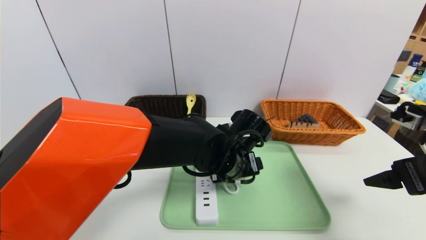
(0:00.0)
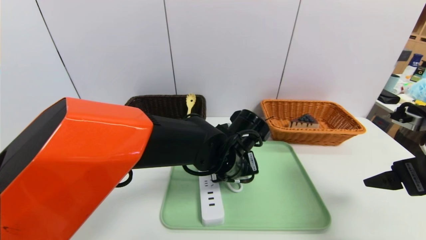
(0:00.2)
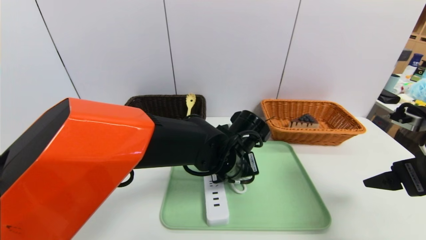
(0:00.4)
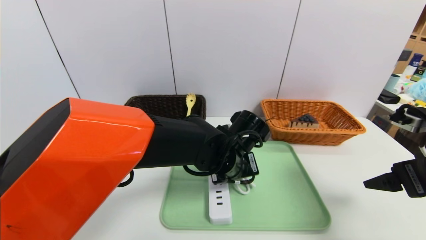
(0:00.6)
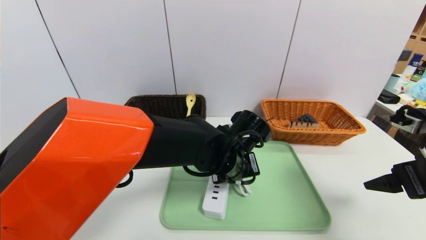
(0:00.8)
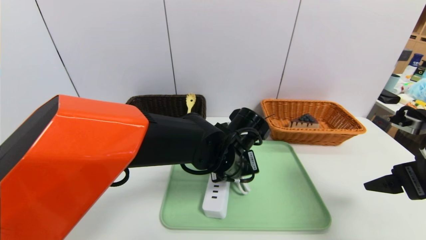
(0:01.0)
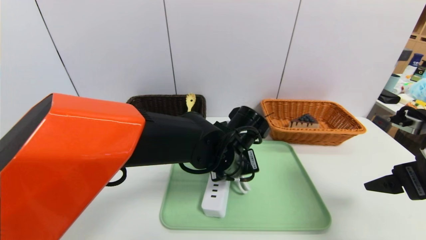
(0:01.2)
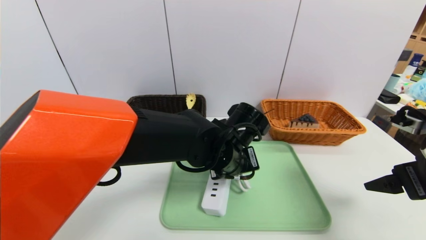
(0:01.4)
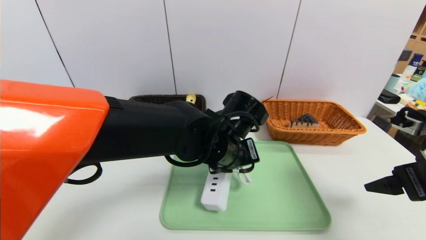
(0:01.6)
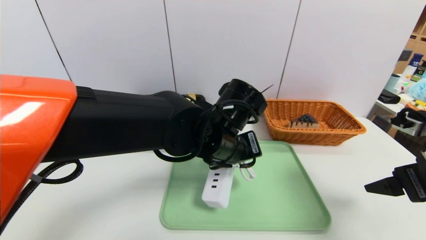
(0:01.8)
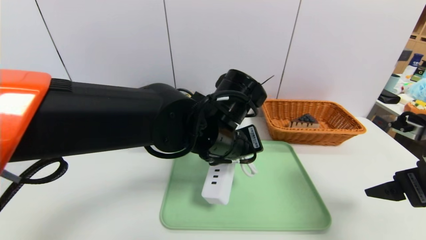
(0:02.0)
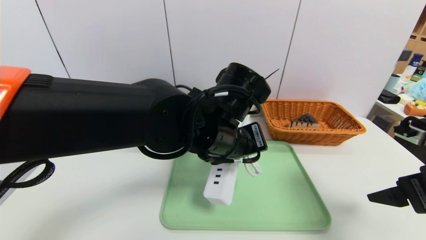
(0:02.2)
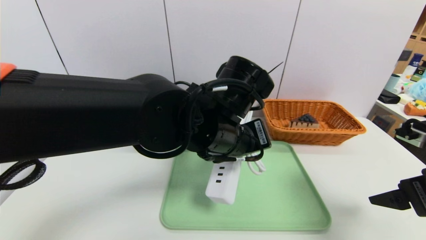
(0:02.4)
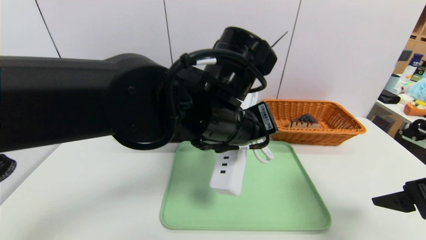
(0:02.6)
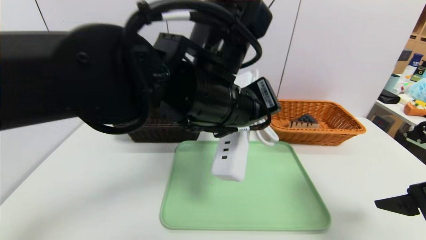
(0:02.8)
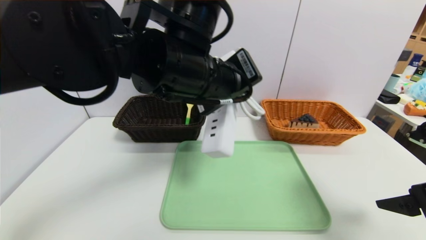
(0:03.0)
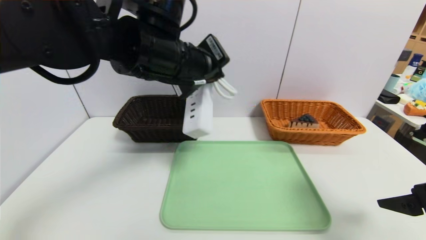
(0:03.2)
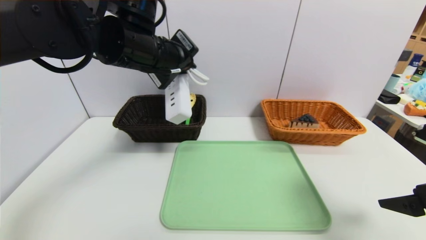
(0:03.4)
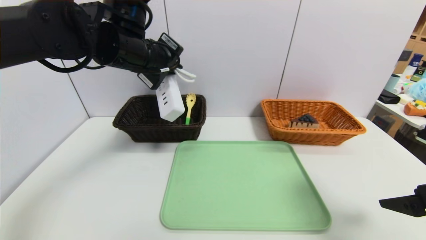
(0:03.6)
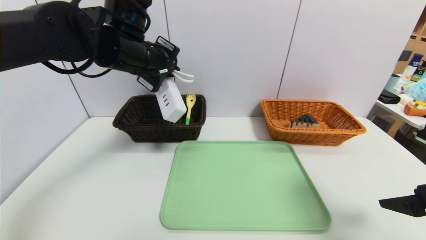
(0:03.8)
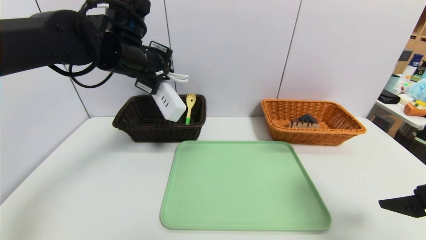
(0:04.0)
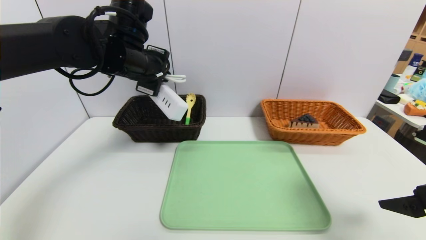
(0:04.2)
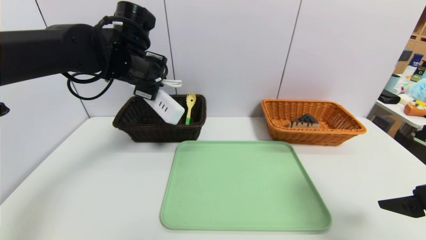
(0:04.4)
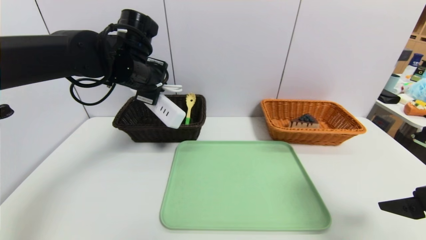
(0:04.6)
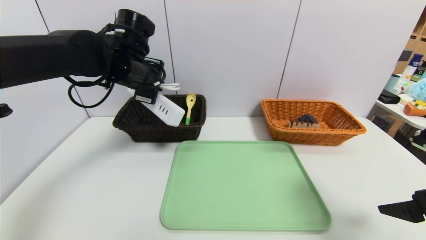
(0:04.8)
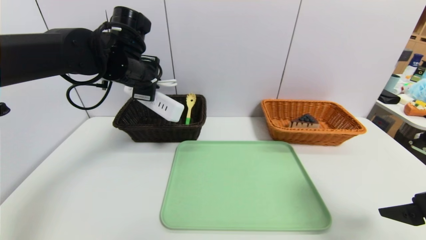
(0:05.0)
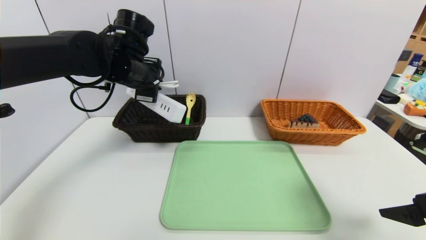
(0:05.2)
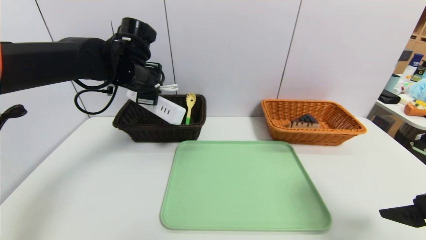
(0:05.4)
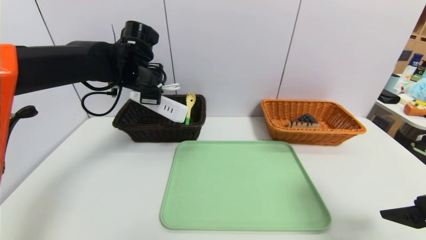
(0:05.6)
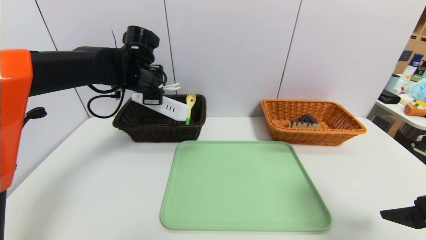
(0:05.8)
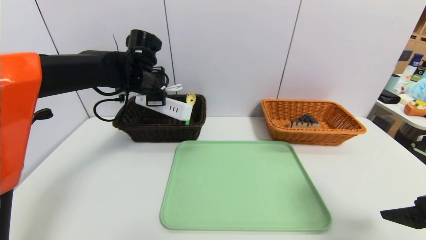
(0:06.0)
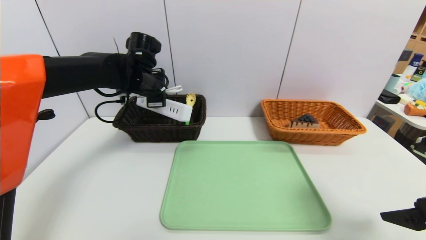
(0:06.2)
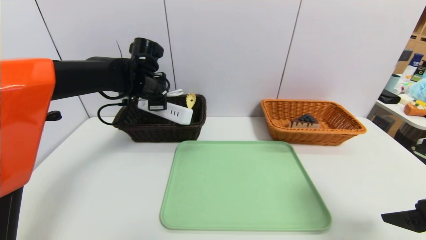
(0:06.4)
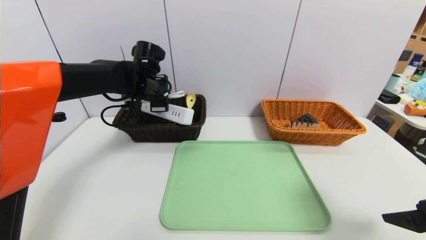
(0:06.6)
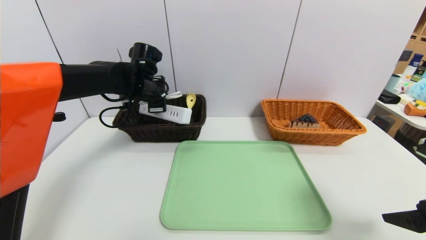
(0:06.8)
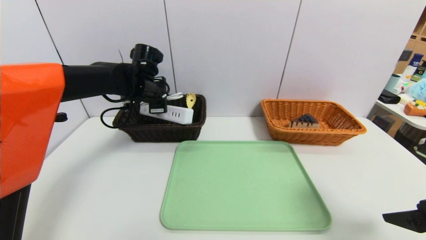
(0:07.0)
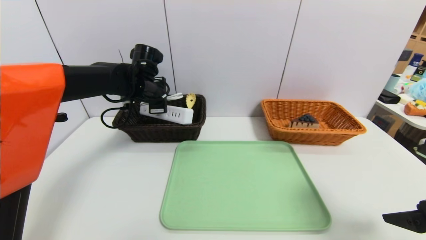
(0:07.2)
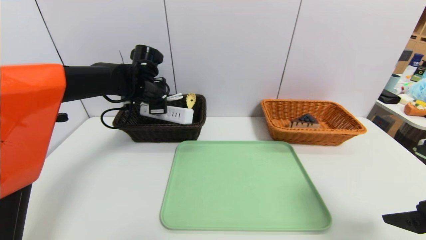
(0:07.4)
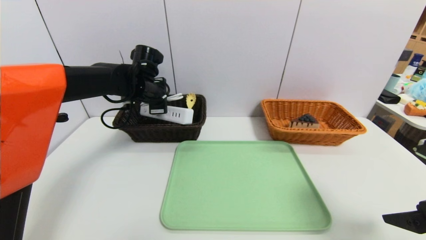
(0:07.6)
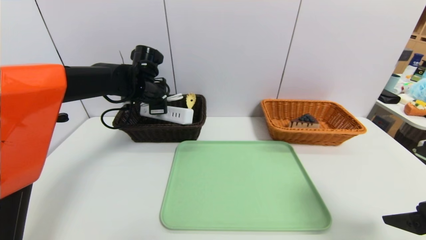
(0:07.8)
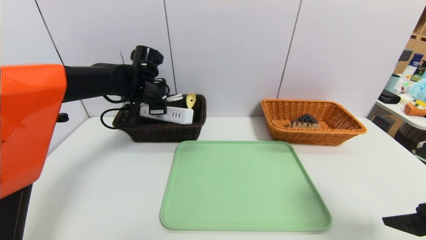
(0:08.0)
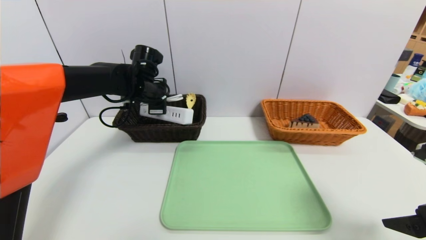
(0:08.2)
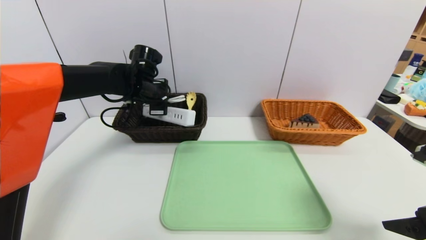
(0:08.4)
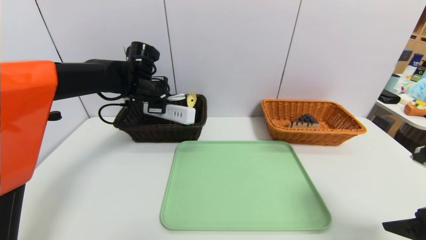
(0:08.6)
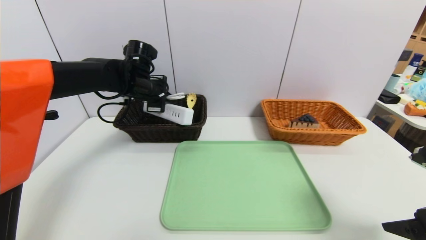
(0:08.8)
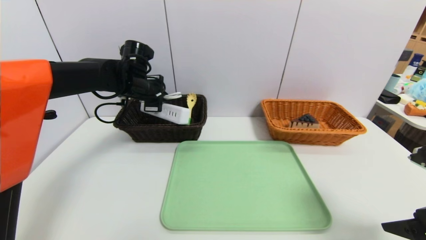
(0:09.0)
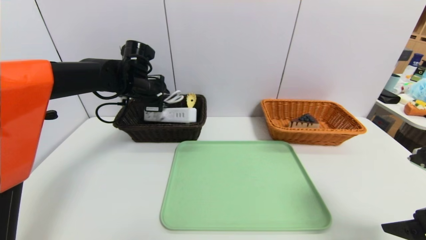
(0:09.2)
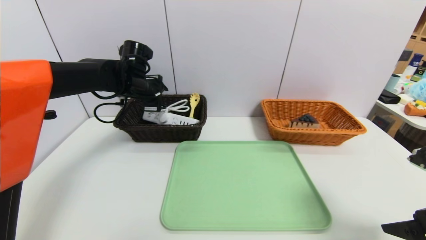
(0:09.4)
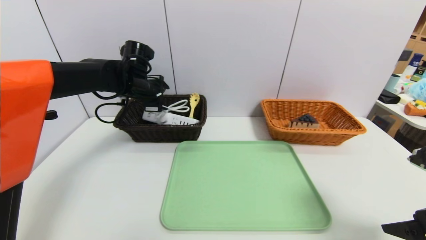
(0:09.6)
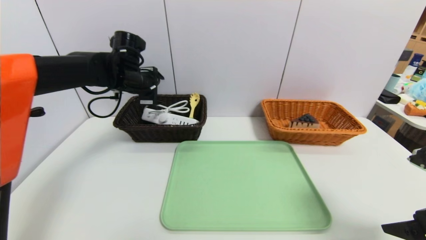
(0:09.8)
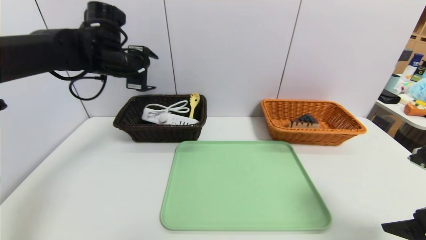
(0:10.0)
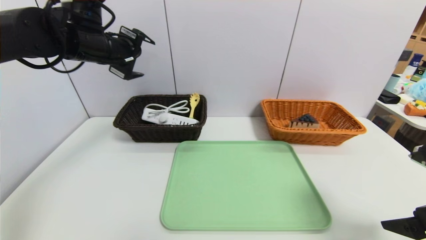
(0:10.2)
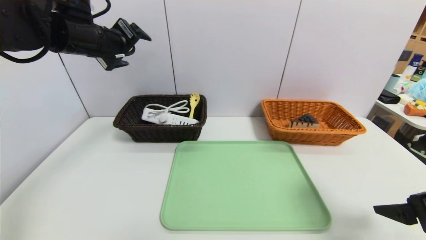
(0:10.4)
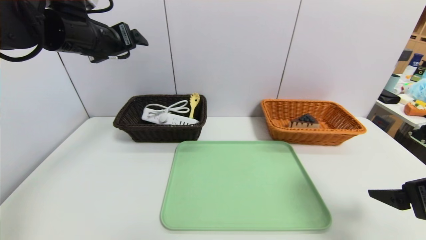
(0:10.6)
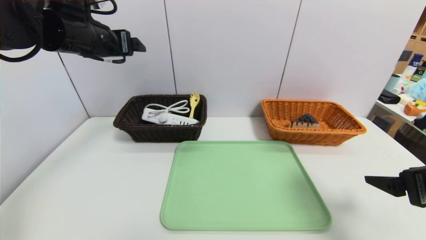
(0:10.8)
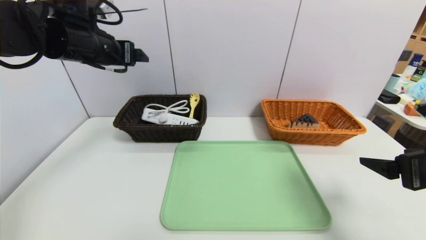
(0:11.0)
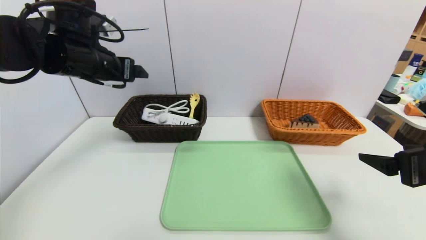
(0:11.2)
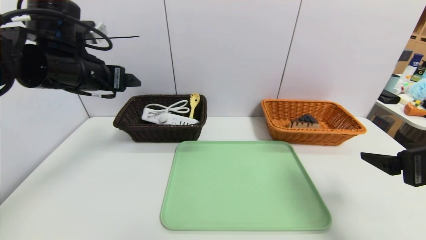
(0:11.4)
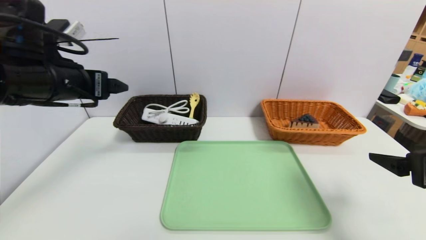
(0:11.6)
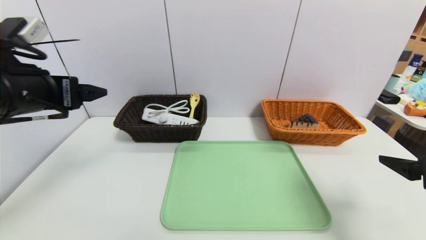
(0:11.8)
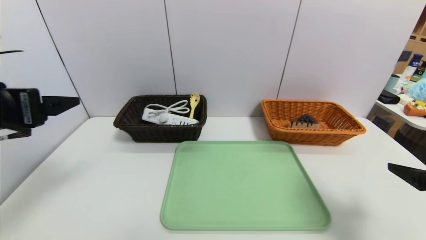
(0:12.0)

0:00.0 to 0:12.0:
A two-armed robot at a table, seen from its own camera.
Task of the whole recording: place the food in the right basket with the right gripper, and place the non food items in the left basket with the left gripper.
Step, 0:00.0 to 0:09.6: Grasp the power strip and put it in the left basket.
0:00.0 to 0:01.6: The left gripper closes its fingers.
0:01.6 to 0:03.0: The left gripper goes approximately 15 cm upward.
0:03.0 to 0:04.4: The left gripper shifts some 20 cm forward and to the left.
0:04.4 to 0:06.0: The left gripper shifts some 5 cm forward.
0:06.0 to 0:09.0: The grippers move only a little.
0:09.0 to 0:10.4: The left gripper is displaced upward and backward by about 15 cm, and opens its fingers.
0:10.4 to 0:12.0: The left gripper moves backward, roughly 20 cm.

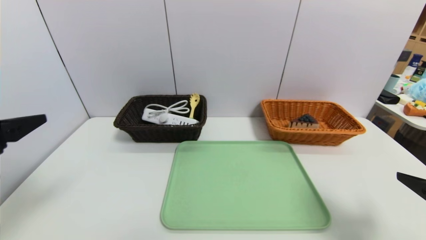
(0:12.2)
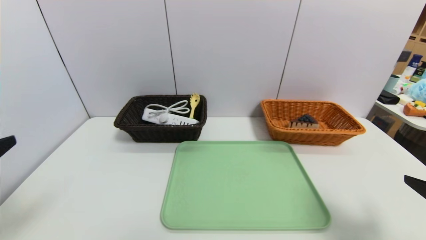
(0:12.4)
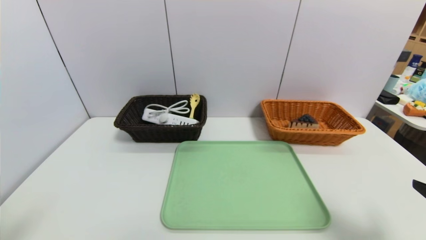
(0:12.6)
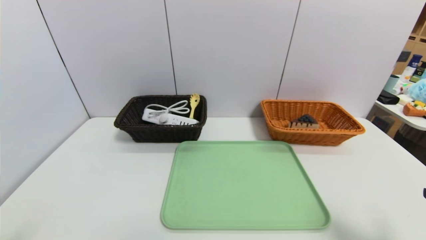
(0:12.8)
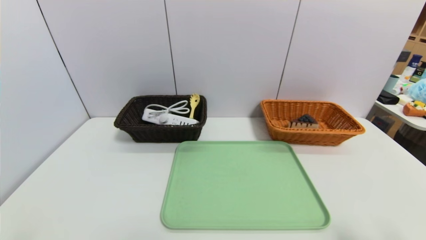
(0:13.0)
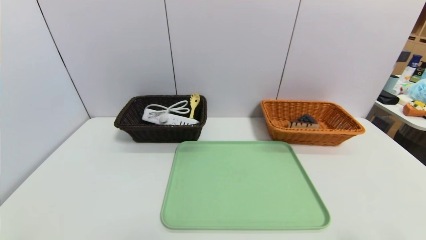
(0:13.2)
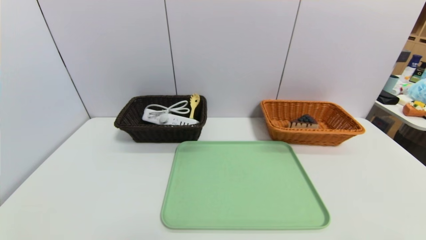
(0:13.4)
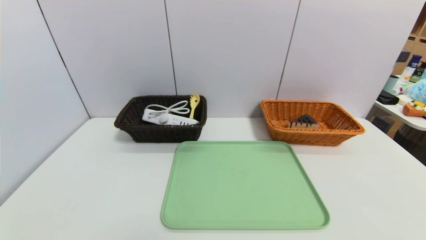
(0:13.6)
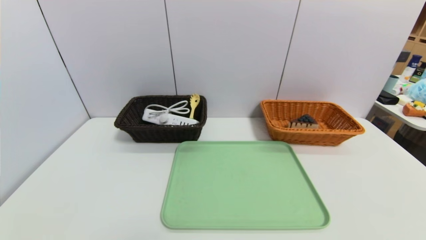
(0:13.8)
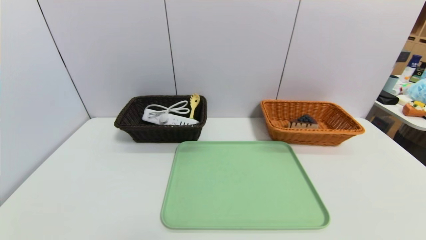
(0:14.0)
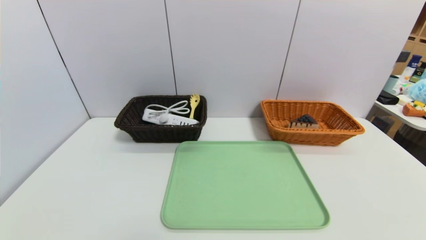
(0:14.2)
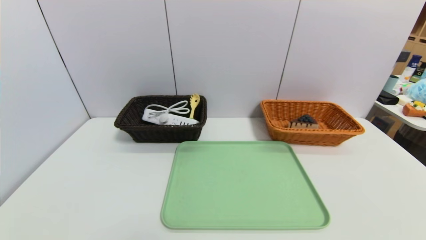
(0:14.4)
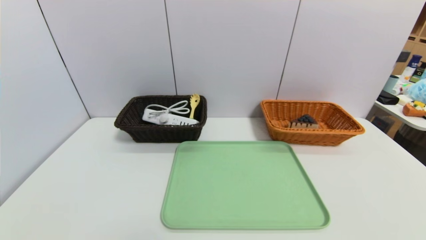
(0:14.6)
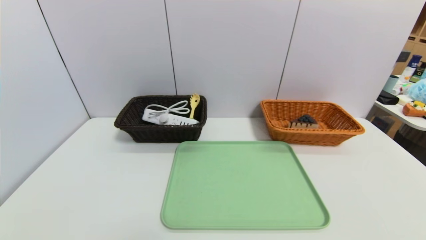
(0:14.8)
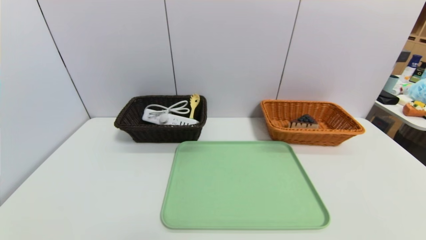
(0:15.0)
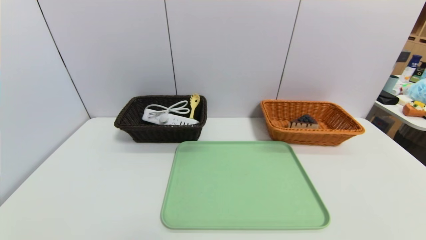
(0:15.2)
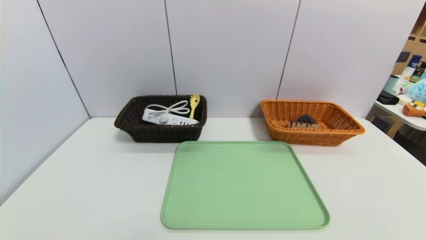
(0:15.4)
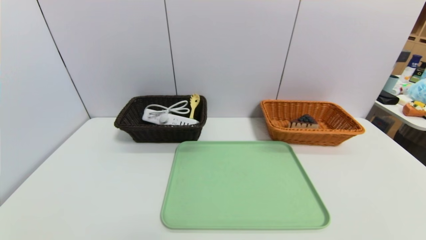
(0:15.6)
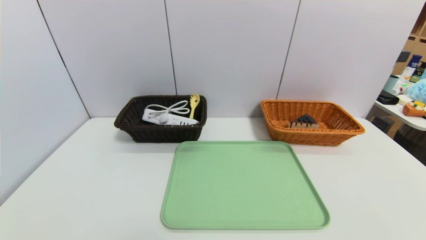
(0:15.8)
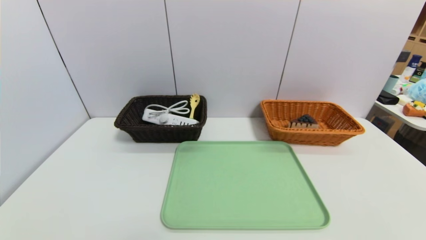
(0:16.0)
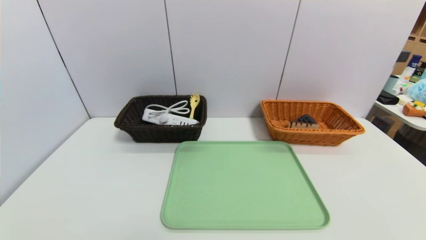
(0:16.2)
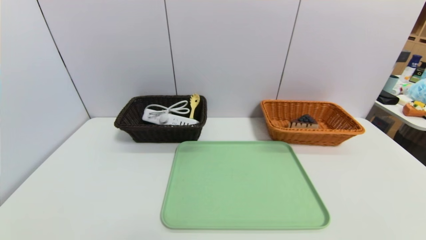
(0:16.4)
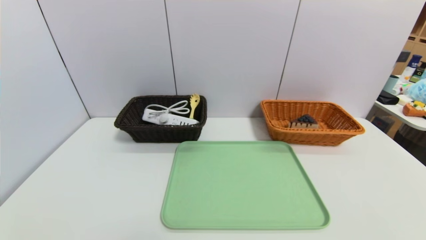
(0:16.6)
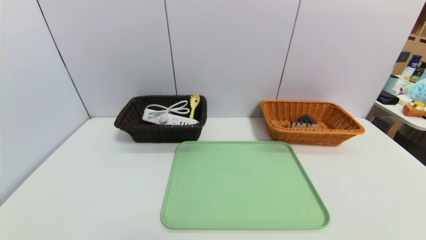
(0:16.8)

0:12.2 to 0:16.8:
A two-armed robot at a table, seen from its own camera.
Task of the whole recording: place the food in the right basket with the right gripper, and place the non food items in the left basket with the left gripper.
0:12.2 to 0:13.8: Both grippers move backward and downward, approximately 15 cm.
